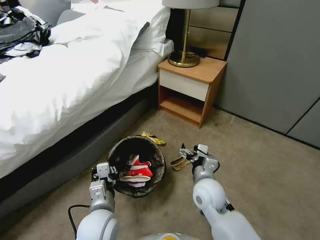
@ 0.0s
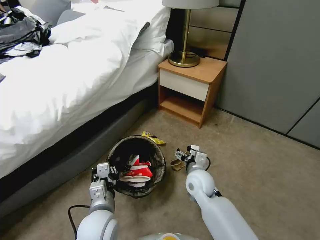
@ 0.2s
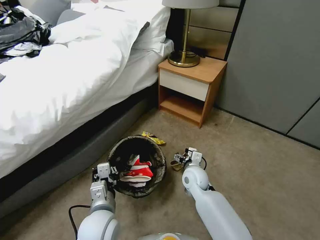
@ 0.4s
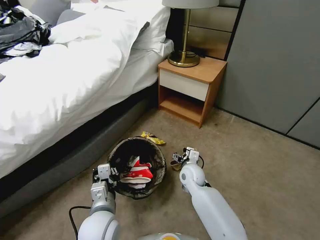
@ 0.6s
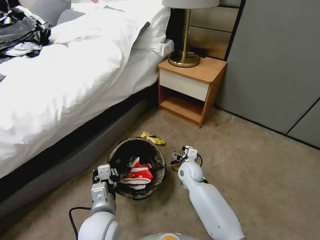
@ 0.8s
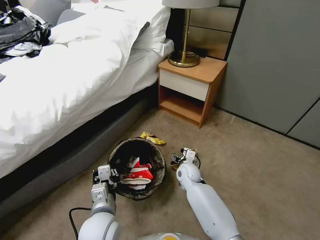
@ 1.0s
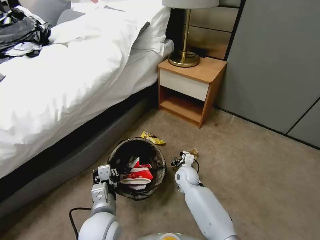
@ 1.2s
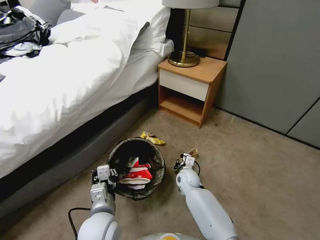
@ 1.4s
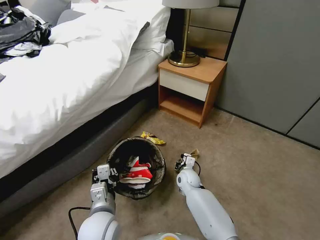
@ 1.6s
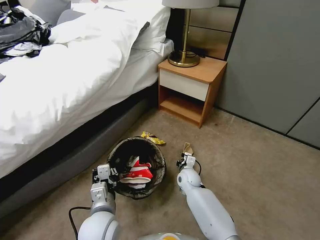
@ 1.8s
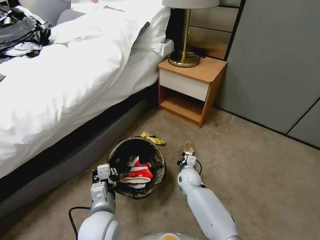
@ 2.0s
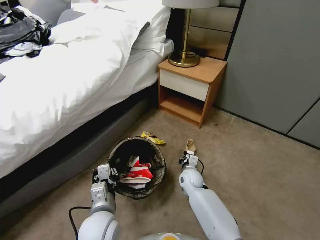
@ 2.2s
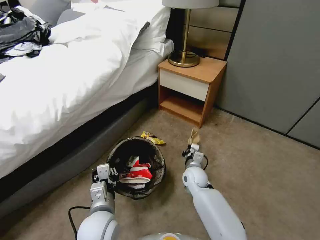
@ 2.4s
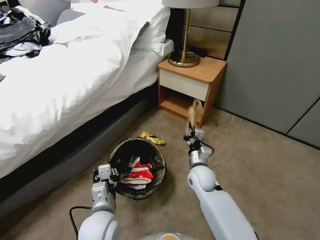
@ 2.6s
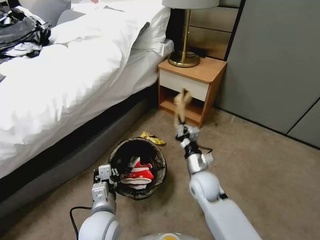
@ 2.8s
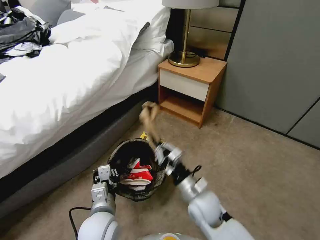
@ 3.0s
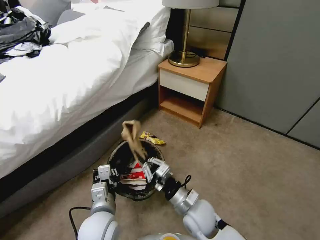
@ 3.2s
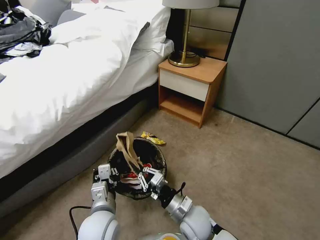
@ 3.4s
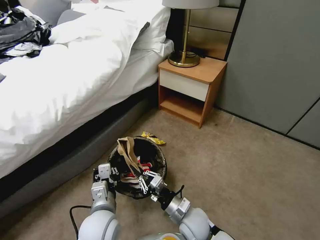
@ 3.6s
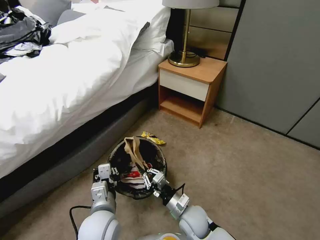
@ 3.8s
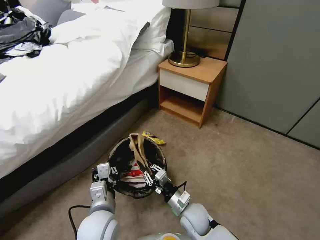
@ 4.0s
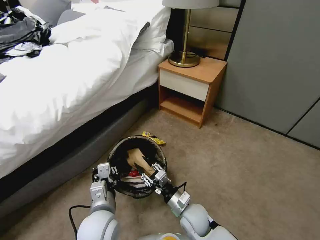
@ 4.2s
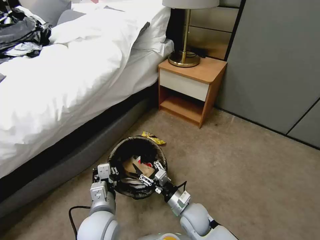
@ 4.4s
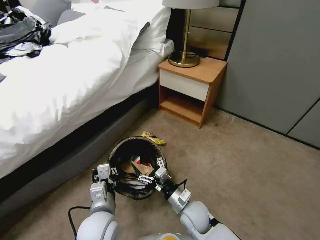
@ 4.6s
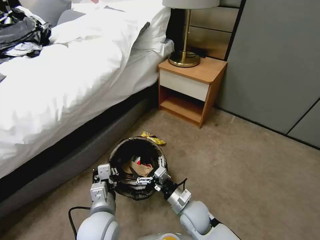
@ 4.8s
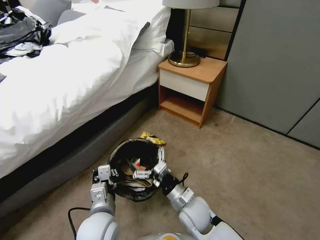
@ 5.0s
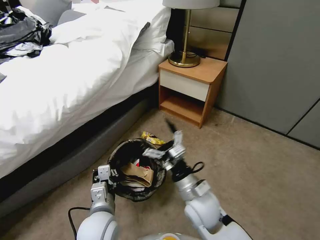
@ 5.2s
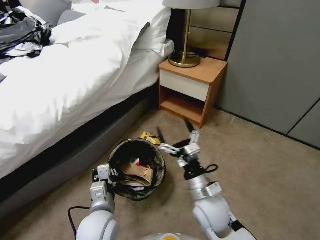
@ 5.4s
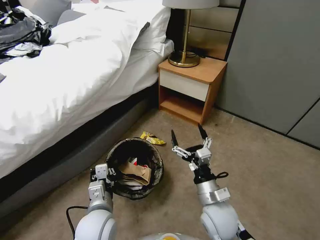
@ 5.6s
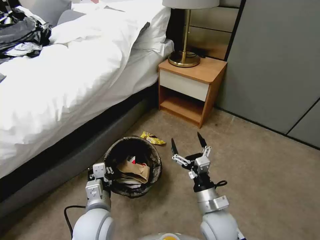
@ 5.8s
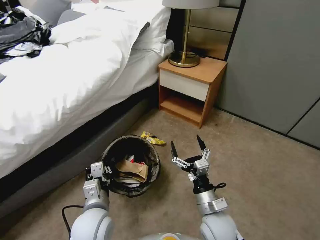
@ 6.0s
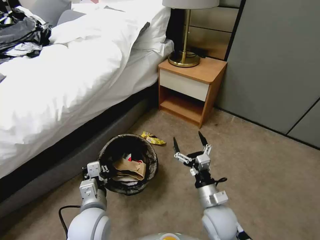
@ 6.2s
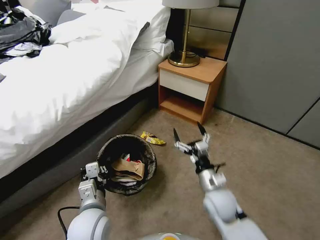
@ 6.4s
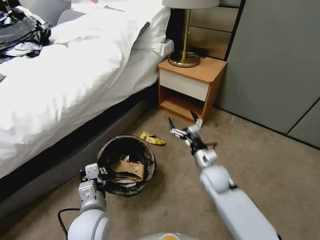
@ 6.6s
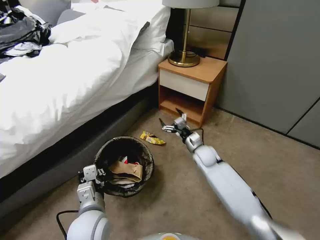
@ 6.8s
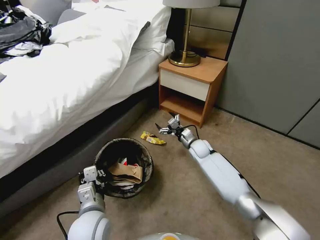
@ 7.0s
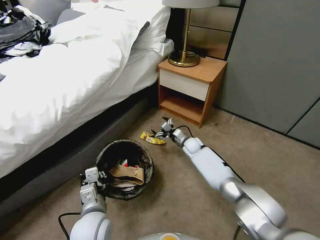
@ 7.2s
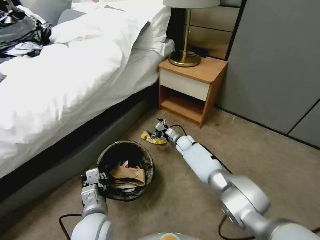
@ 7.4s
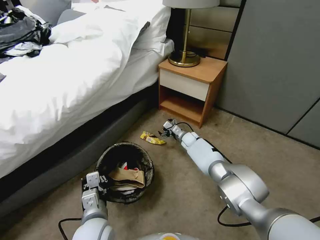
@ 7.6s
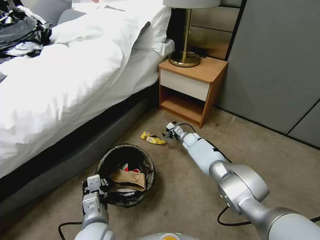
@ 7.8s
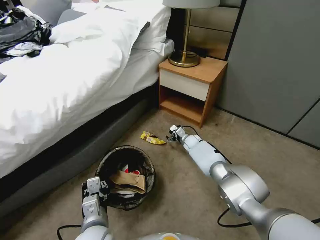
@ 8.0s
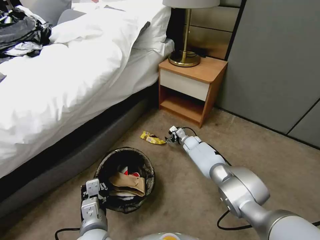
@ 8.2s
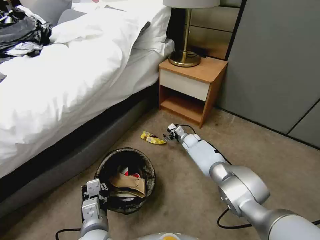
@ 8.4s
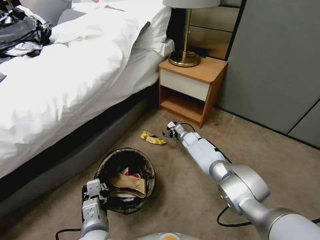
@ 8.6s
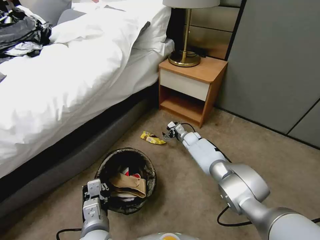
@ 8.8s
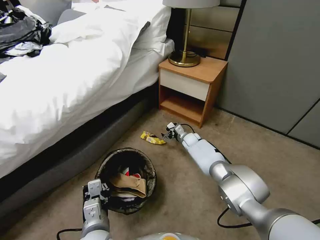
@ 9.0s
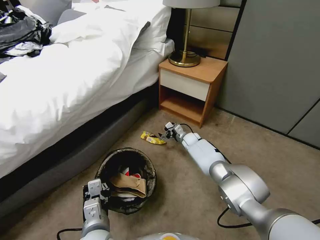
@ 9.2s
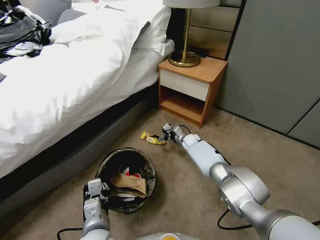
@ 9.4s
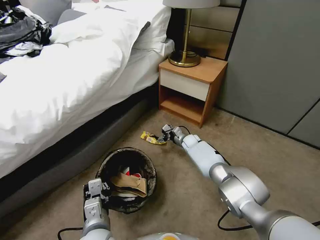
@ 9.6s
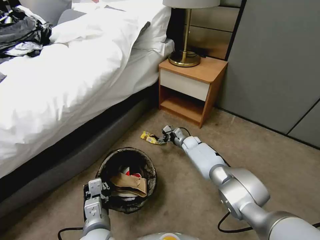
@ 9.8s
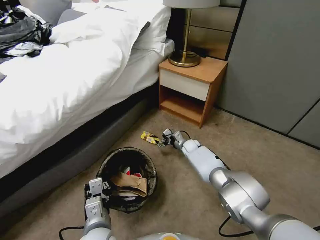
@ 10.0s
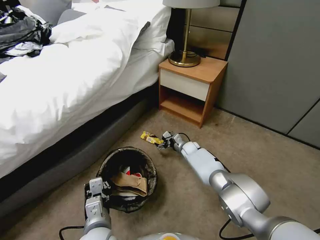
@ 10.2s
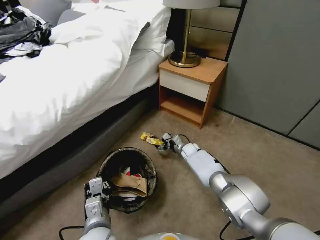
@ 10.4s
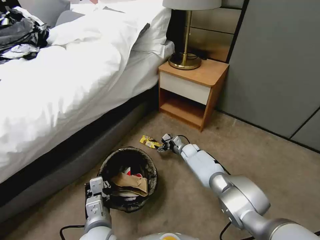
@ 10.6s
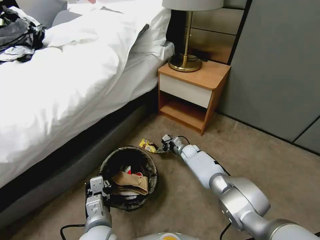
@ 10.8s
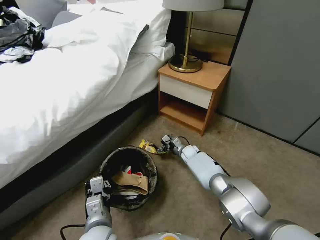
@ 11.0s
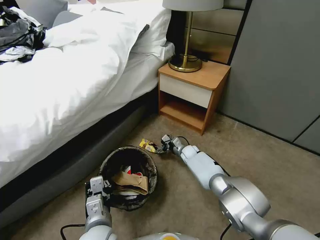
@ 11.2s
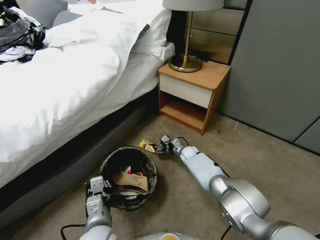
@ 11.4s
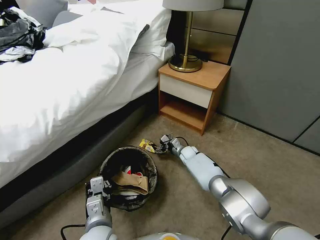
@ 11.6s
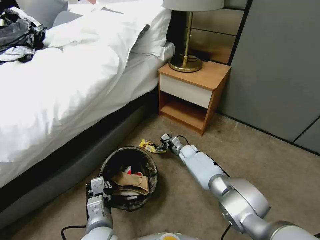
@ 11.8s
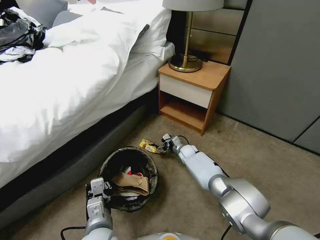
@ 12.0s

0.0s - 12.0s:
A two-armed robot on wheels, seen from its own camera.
Task of the whole recording: Pick up the trash bin, then pick up the garbage from the floor and place it into the trash bin.
0.0s - 1.6s: The right gripper is displaced downward and forward by roughly 20 cm, and closes up.
1.6s - 3.0s: The right gripper moves backward and upward, approximately 20 cm.
3.0s - 4.4s: The right gripper is displaced downward by some 10 cm, and opens up.
4.4s - 6.0s: The right gripper is displaced upward and to the right by some 10 cm, and opens.
6.0s - 7.6s: The right gripper travels forward by roughly 35 cm.
7.6s - 9.0s: The grippers move only a little.
9.0s - 10.4s: The right gripper ends up some 5 cm from where it was.

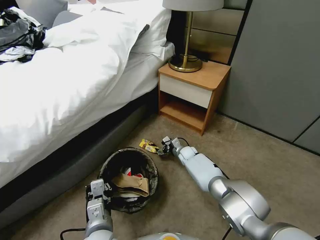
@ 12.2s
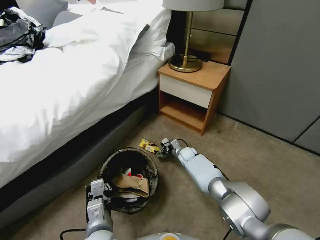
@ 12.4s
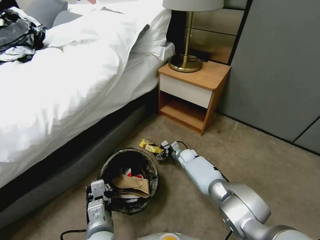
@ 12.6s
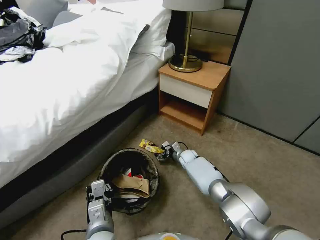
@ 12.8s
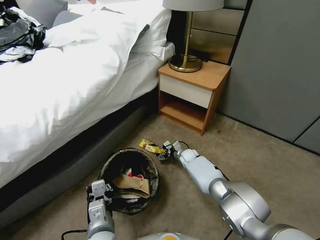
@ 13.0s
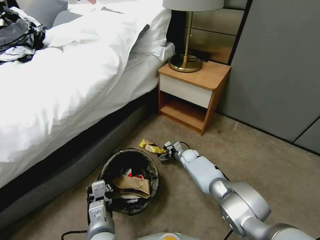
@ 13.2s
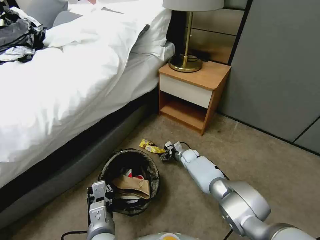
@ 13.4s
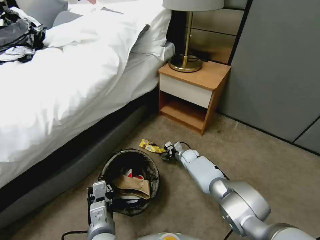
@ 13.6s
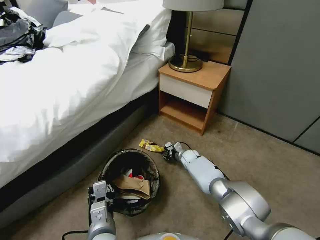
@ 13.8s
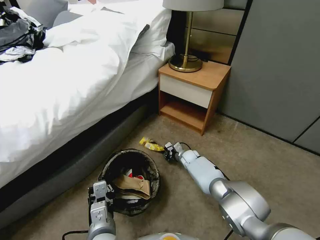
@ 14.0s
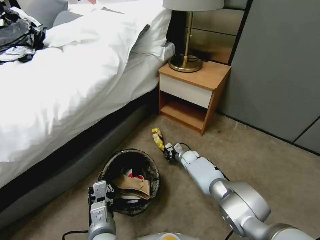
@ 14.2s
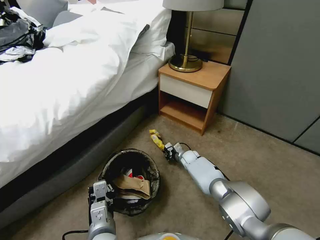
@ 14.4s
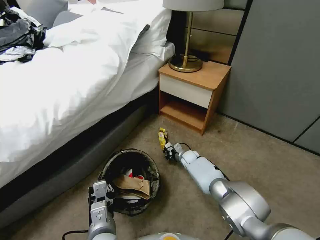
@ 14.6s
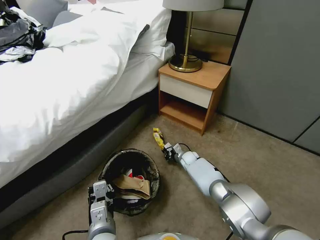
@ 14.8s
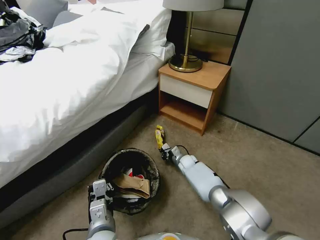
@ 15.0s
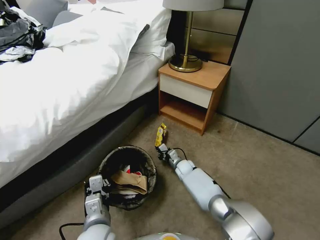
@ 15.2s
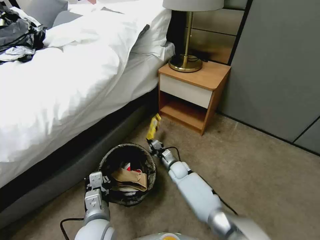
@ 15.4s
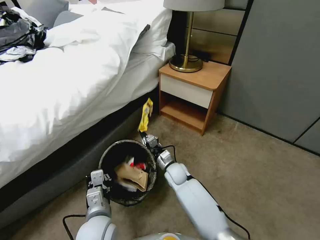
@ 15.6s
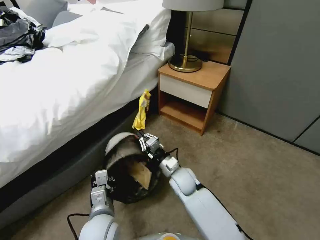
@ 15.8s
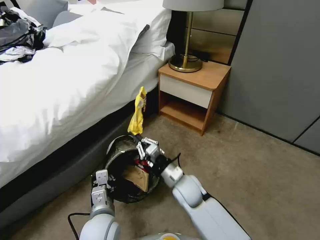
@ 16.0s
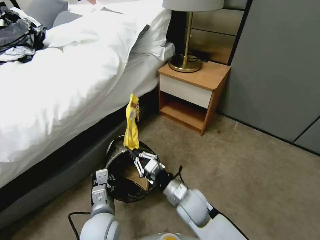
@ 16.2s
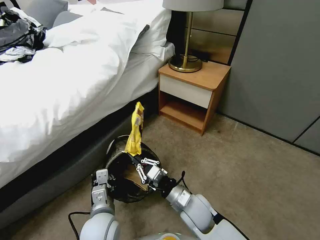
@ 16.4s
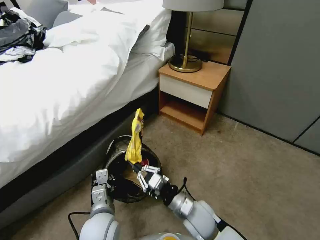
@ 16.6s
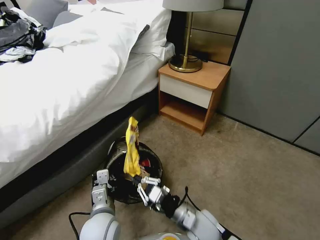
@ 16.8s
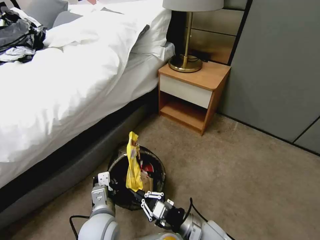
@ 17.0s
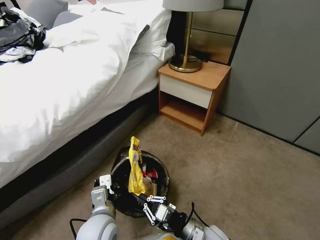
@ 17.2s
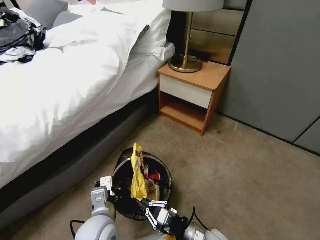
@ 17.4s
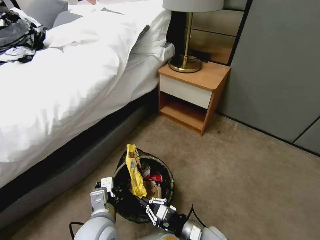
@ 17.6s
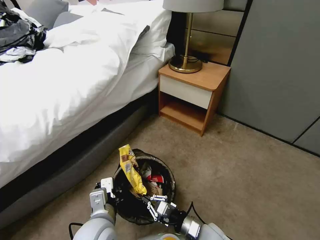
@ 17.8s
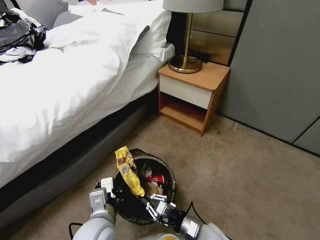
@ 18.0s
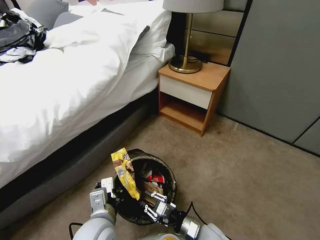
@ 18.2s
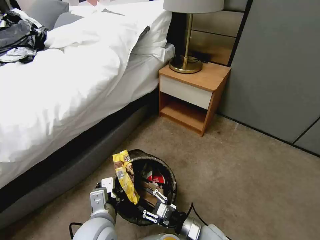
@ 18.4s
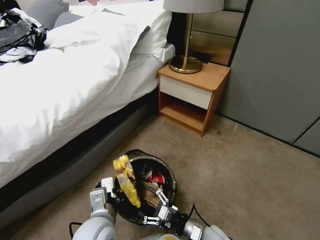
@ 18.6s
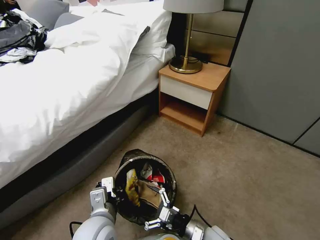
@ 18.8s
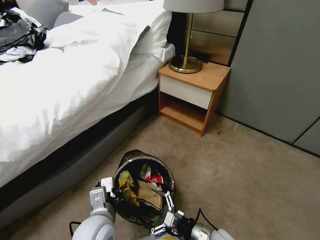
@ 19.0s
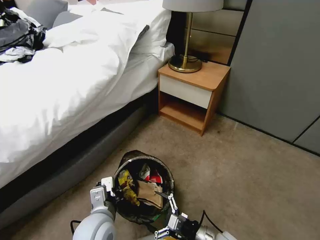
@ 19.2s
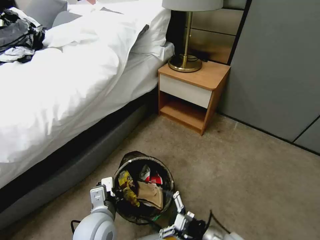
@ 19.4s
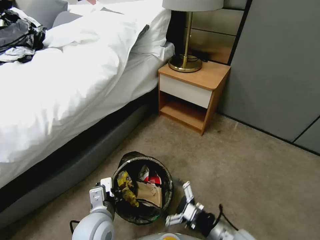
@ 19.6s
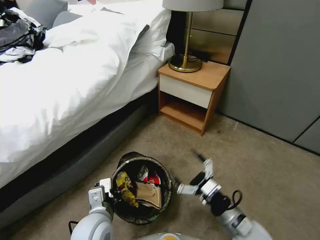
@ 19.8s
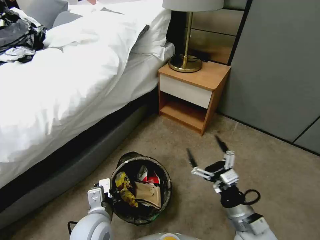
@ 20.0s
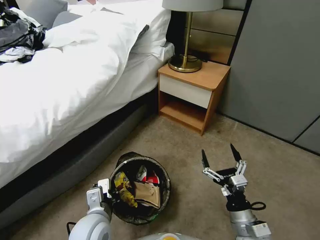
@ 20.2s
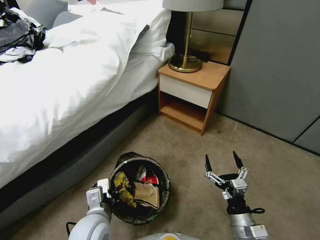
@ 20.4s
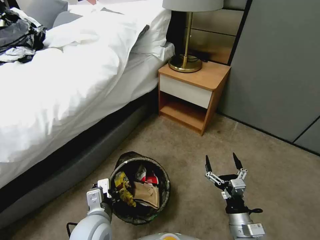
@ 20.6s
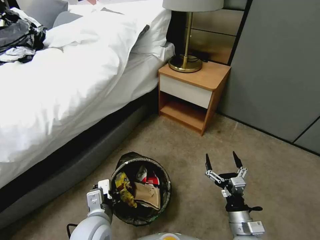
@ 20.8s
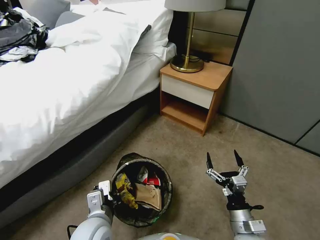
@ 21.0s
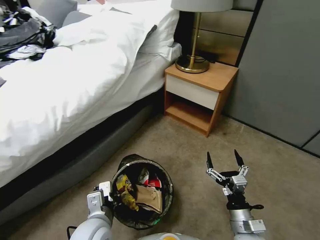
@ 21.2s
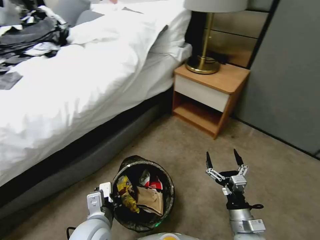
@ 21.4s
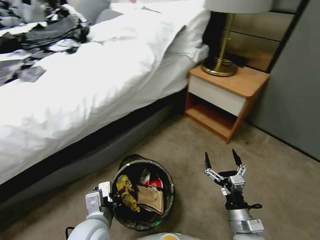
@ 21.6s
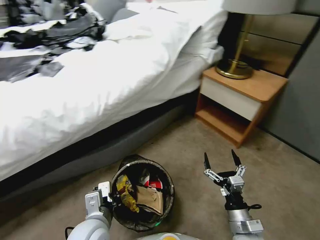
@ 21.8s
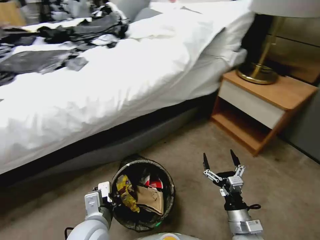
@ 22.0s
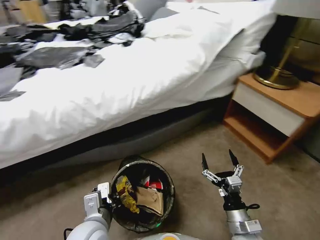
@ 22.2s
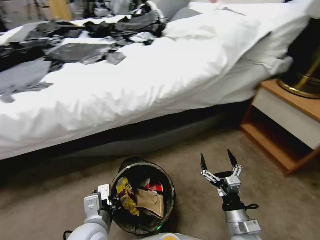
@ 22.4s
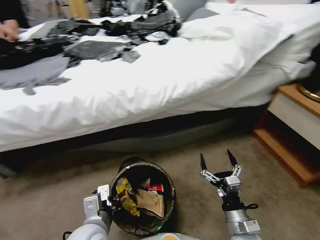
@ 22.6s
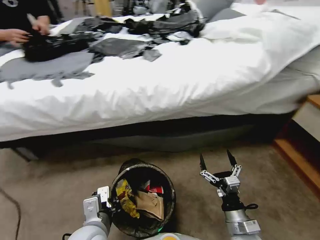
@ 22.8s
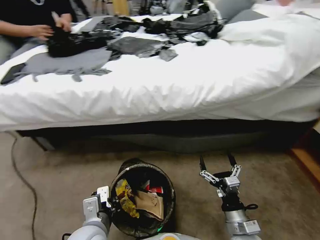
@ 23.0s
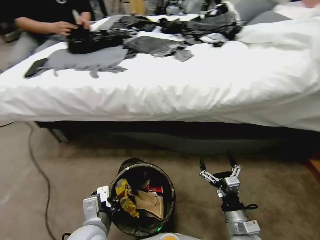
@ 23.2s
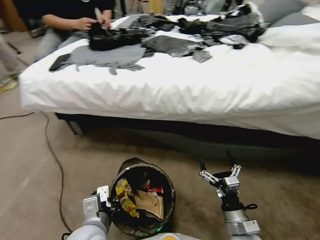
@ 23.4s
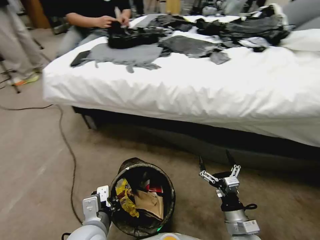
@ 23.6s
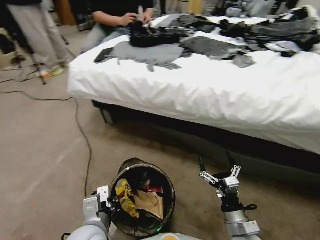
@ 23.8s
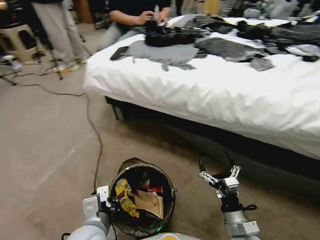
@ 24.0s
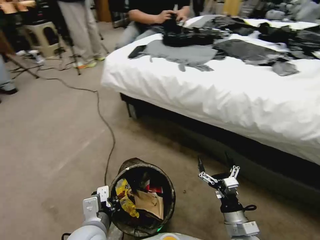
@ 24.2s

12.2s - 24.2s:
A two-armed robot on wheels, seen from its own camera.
Task of the whole recording: Pick up the trash bin, then pick up the garbage from the floor and place it into the trash bin.
12.2s - 13.8s: The right gripper closes its fingers.
13.8s - 15.2s: The right gripper shifts by roughly 5 cm, and closes up.
15.2s - 16.6s: The right gripper goes about 30 cm backward and upward.
16.6s - 18.2s: The right gripper is displaced downward and backward by about 10 cm, while the left gripper shifts roughly 5 cm upward.
18.2s - 19.8s: The right gripper goes some 15 cm upward and to the right, and opens.
